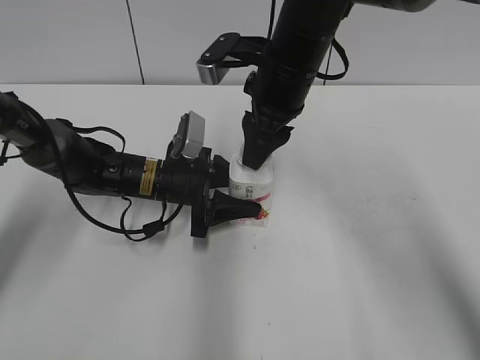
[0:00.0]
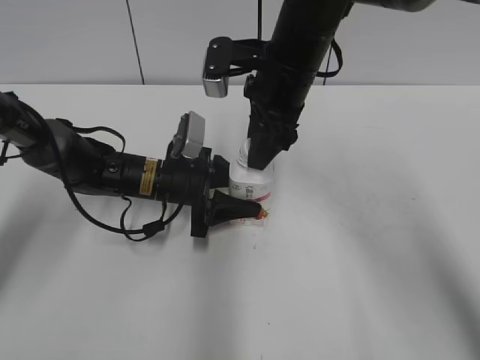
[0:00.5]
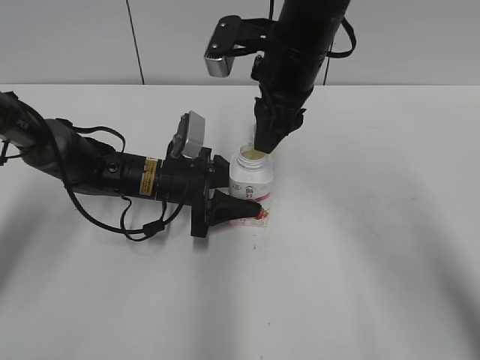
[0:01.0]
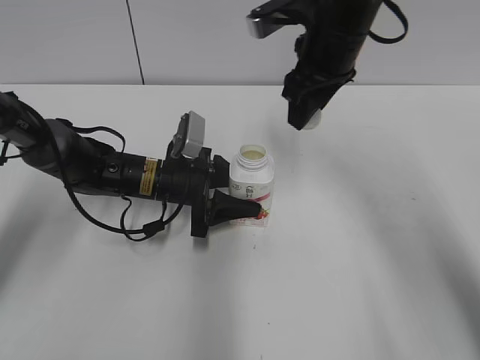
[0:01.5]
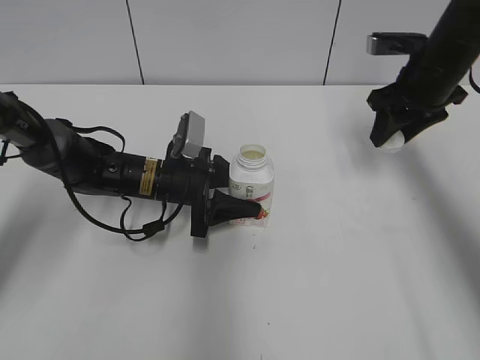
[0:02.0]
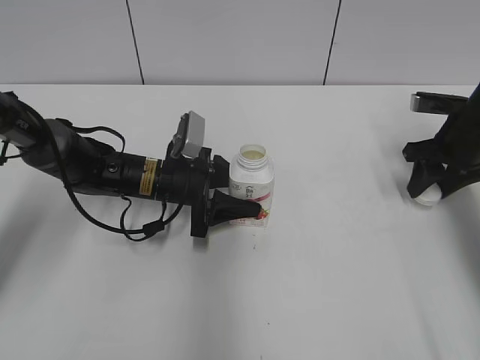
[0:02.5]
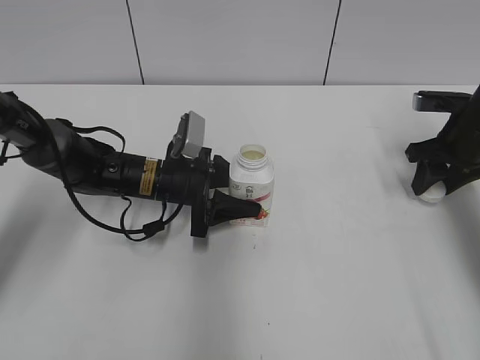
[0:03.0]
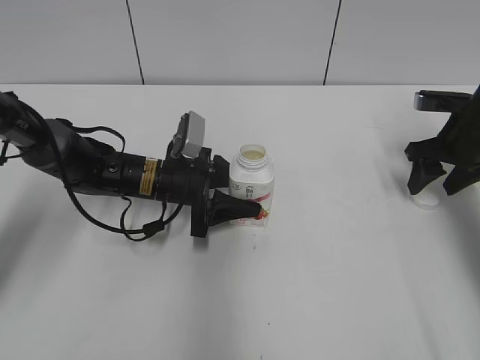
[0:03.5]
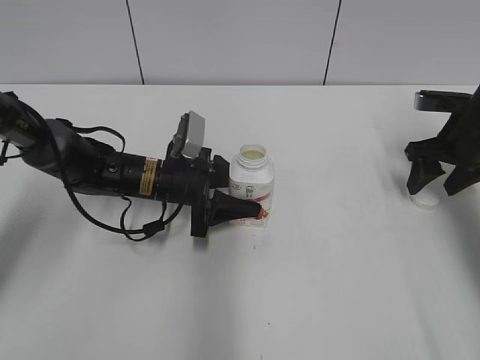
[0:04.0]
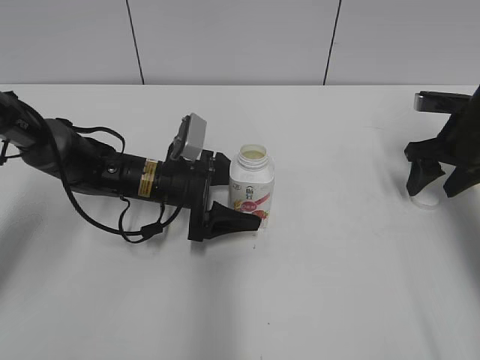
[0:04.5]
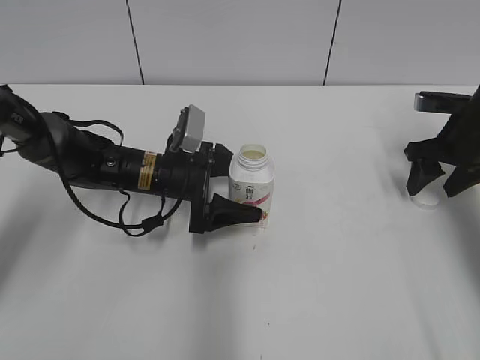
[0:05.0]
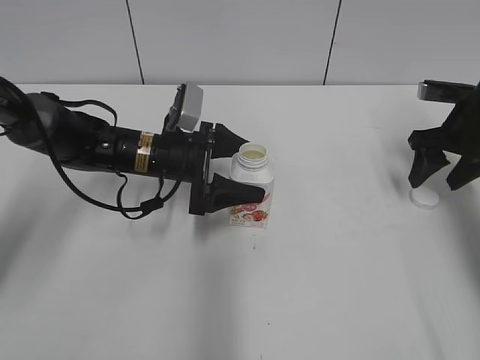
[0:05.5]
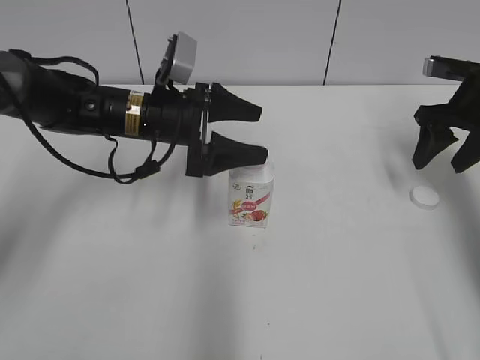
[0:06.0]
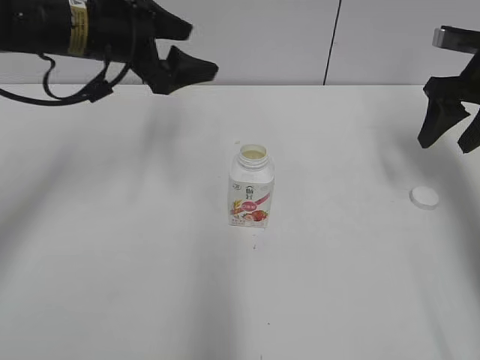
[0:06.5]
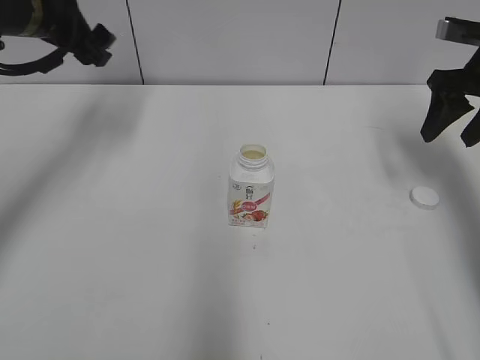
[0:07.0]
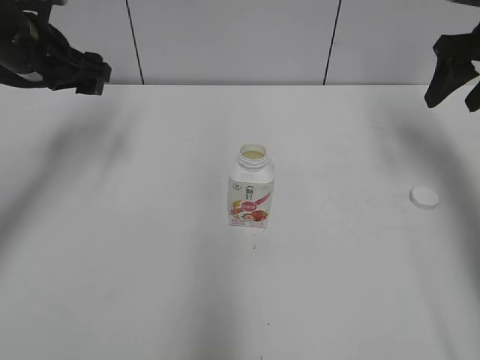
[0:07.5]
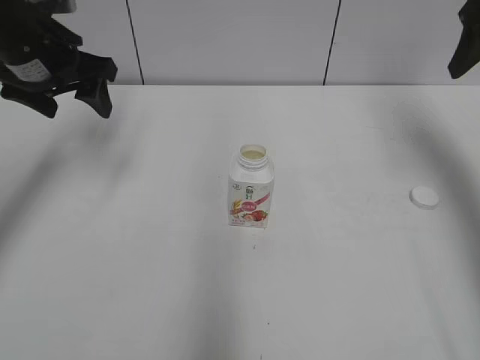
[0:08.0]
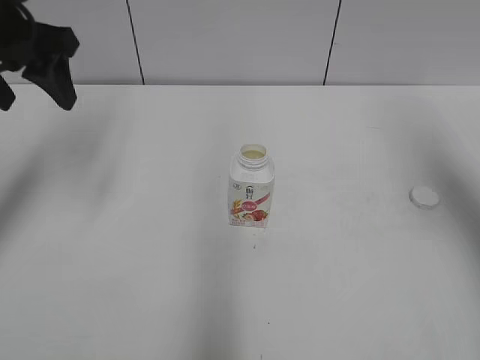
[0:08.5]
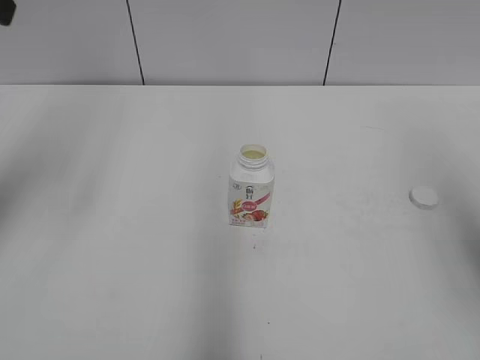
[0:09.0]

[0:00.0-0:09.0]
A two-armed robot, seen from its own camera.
Step, 0:01.5 to 0:03.5: Place the bottle cap on the table with the right gripper.
Step, 0:04.0 to 0:04.5: Place the bottle on the table with the left gripper.
0:00.0 to 0:02.0: The right gripper heads to the right, covering some 20 cm.
0:02.0 to 0:04.5: The right gripper goes some 10 cm downward and to the right, and opens. Meanwhile the left gripper opens.
0:04.5 to 0:07.0: The right gripper shifts roughly 10 cm upward, while the left gripper shifts some 25 cm upward and to the left.
0:07.0 to 0:09.0: Both grippers travel together backward and upward, roughly 25 cm. The left gripper closes up.
